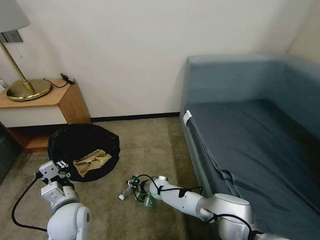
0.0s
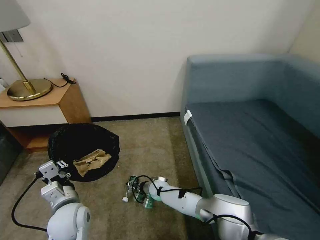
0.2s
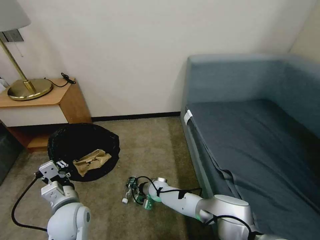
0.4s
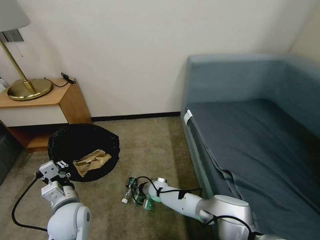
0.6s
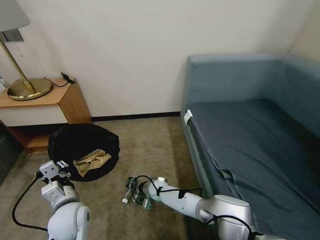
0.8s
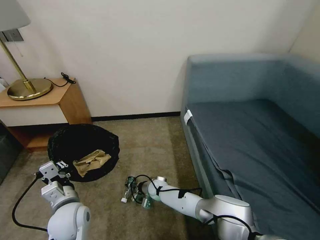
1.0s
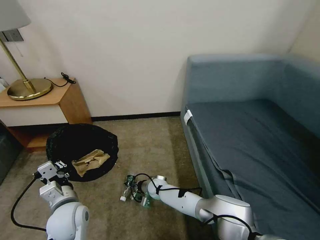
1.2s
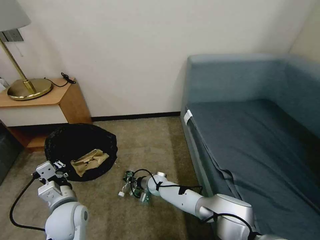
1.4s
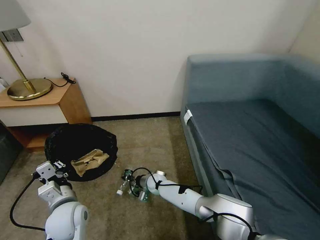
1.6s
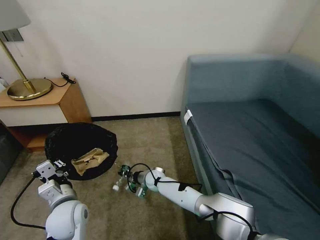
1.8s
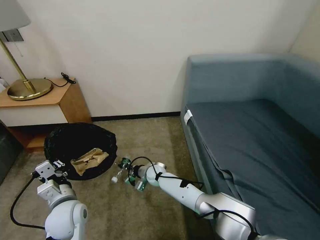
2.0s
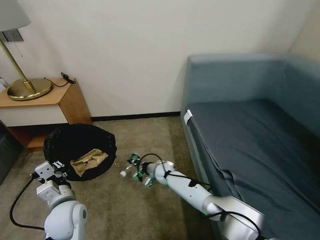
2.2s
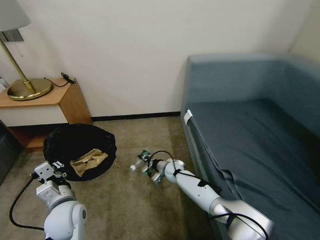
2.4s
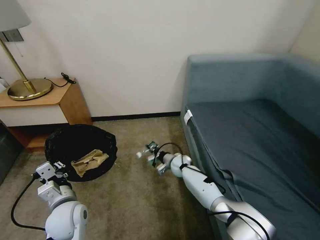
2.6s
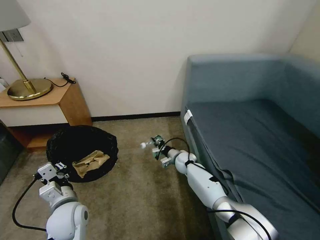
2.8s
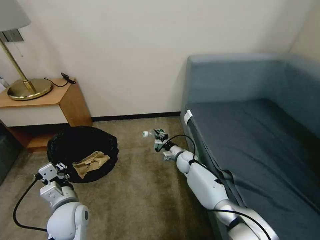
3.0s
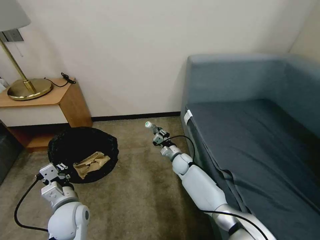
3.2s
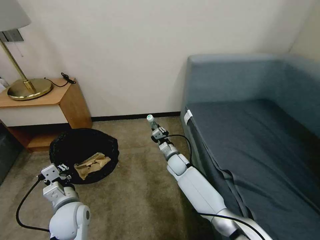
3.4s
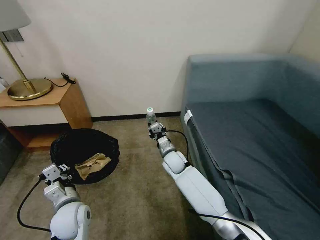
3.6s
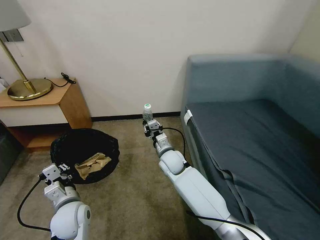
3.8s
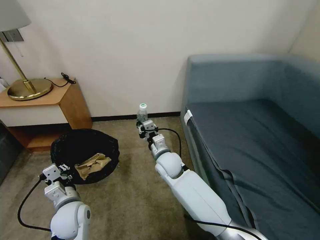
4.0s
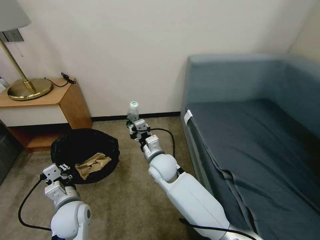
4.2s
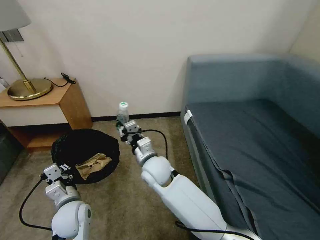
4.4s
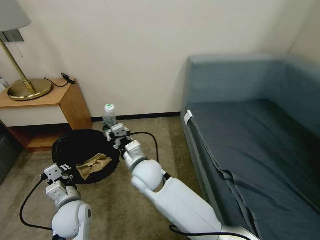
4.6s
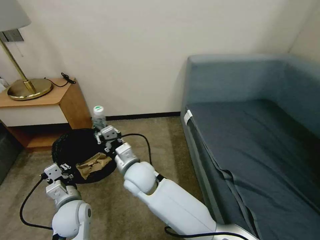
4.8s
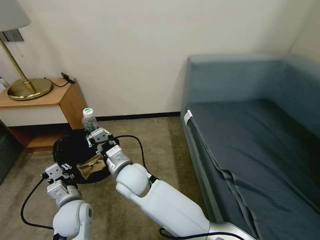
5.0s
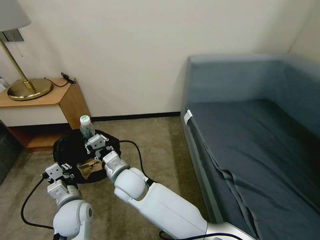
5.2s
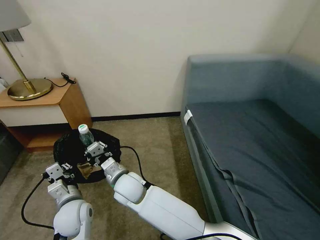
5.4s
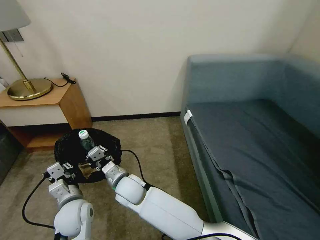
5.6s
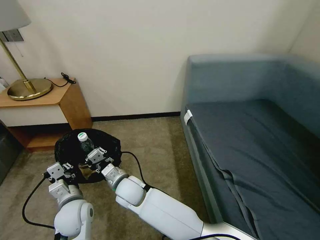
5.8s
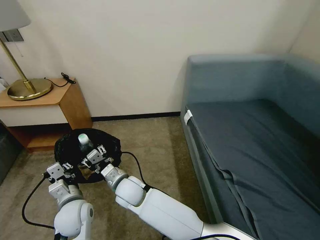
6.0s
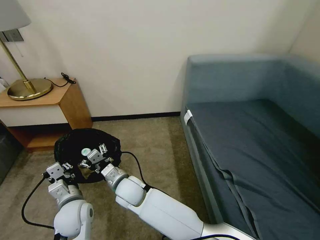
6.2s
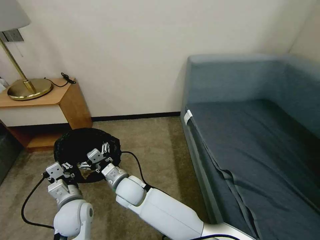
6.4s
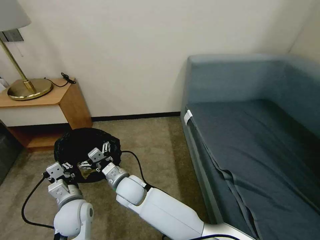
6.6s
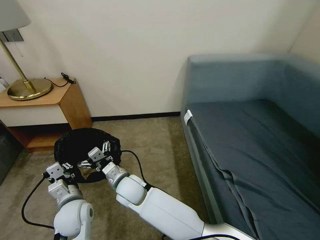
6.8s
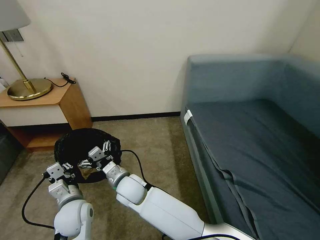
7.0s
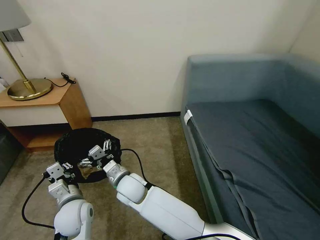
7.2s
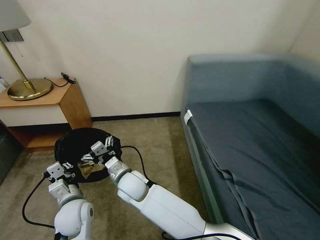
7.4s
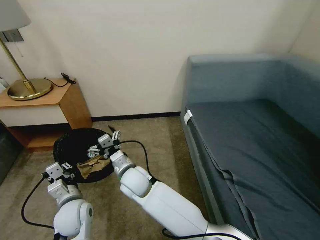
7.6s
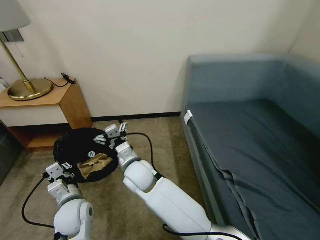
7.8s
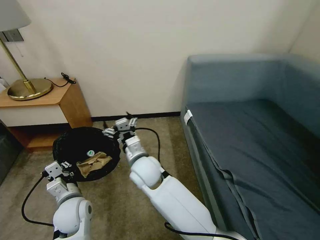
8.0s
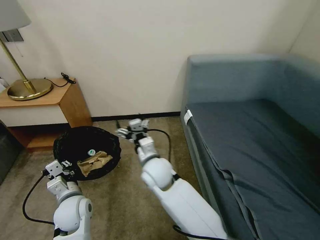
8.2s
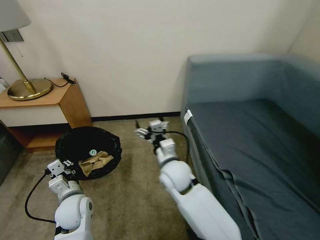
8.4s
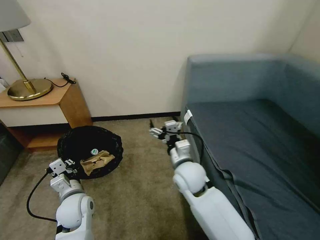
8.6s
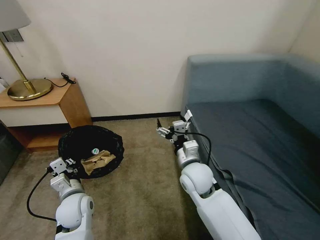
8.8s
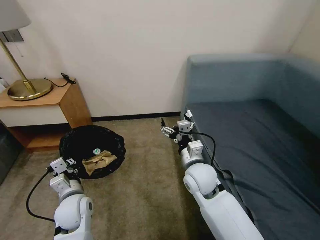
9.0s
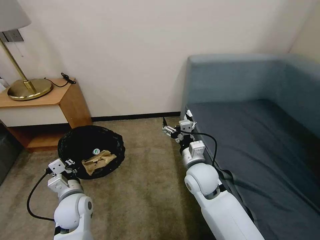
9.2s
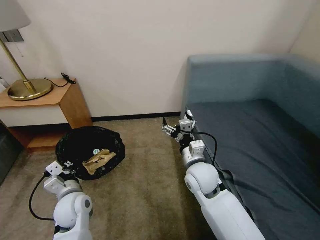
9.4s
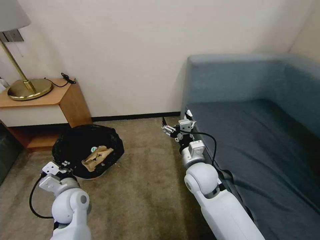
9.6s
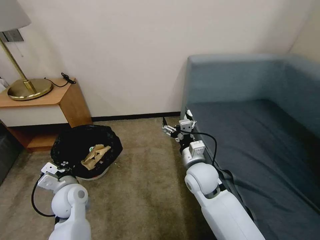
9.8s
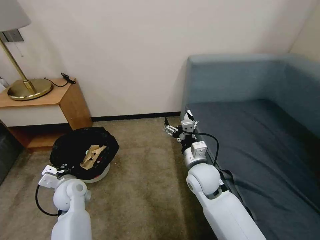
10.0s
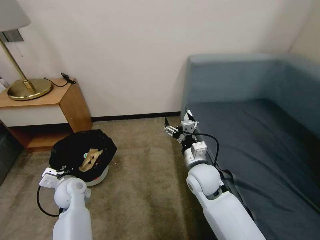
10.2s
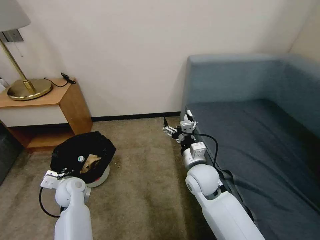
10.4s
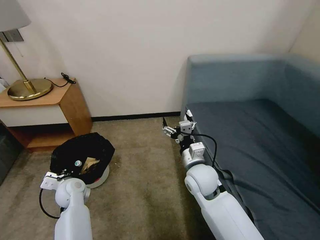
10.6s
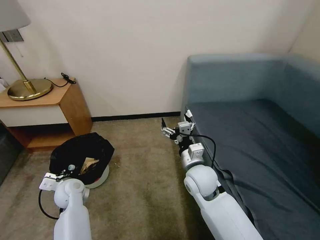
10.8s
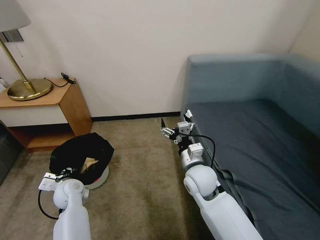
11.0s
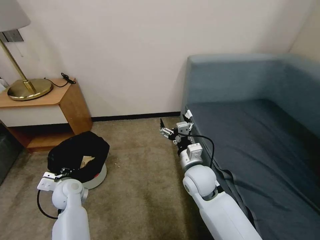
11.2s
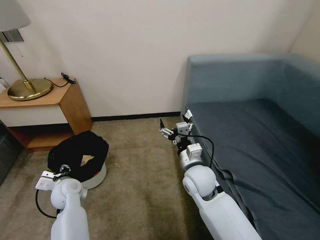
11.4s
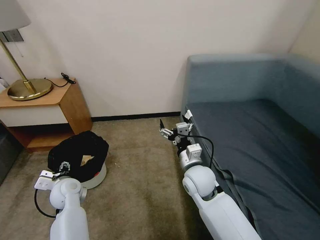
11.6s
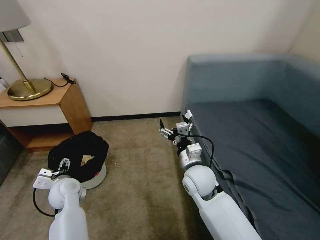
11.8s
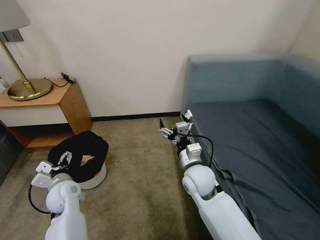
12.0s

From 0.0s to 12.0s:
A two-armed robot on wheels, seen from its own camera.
Task of the whole recording: Pick up the trash bin, then pick up the garbage on the floor and place it into the trash bin.
From 0.0s to 1.6s: The right gripper closes its fingers.
From 1.6s to 3.0s: The right gripper heads to the right, forward and upward, covering some 15 cm.
From 3.0s to 4.4s: The right gripper heads upward, to the left and backward, covering some 25 cm.
From 4.4s to 6.0s: The right gripper heads to the left and downward, covering approximately 10 cm.
From 6.0s to 7.6s: The right gripper opens its fingers.
From 7.6s to 9.0s: The right gripper goes roughly 20 cm to the right.
From 9.0s to 10.4s: The left gripper shifts approximately 10 cm forward and to the left.
From 10.4s to 12.0s: The left gripper opens up.

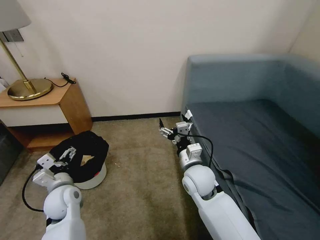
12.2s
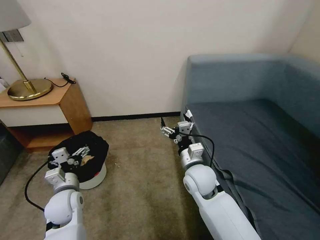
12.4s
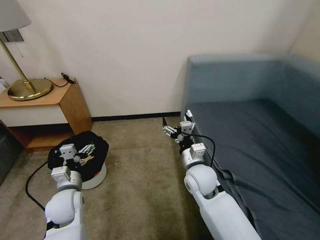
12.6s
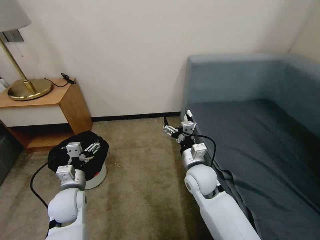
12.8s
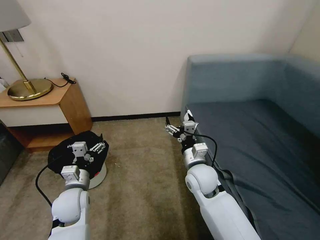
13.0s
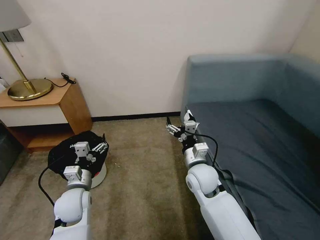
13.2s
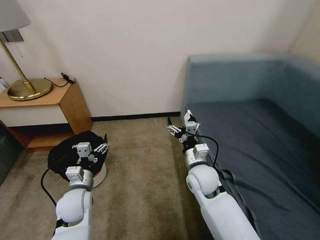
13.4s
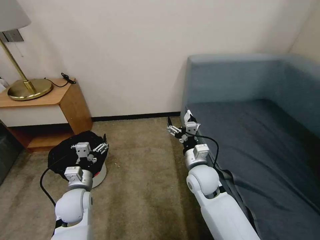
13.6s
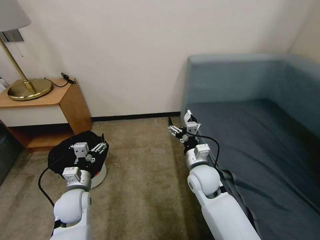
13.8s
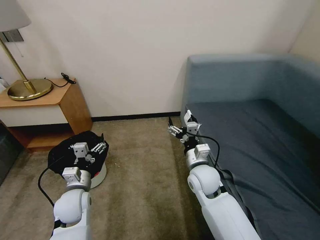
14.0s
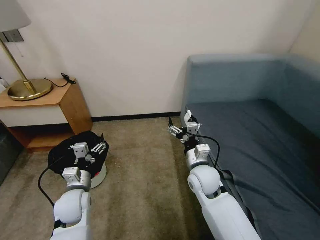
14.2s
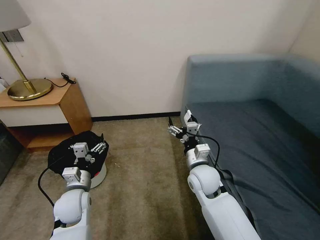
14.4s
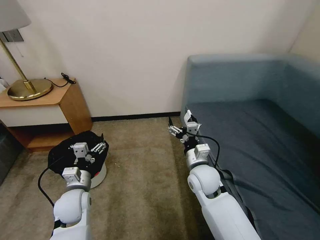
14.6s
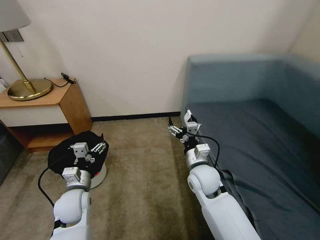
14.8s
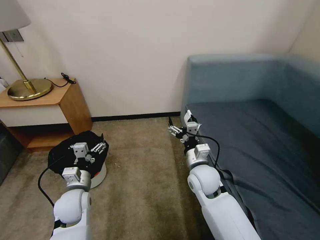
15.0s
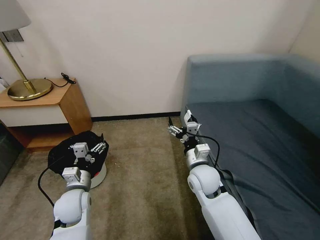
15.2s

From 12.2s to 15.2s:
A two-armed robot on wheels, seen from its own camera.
Task of the whole recording: Pick up the trash bin, then pick up the garbage on the floor and place it into the trash bin.
From 13.8s to 15.2s: Both grippers stay about where they are.

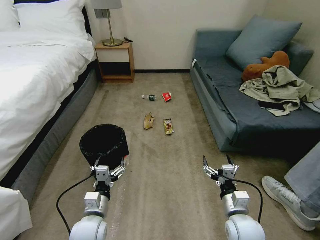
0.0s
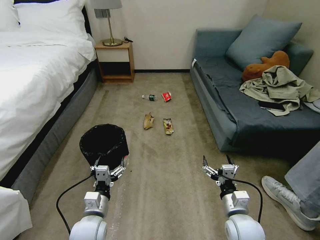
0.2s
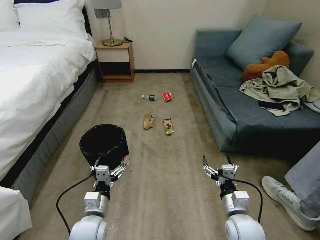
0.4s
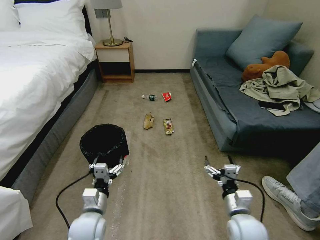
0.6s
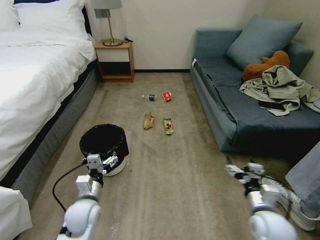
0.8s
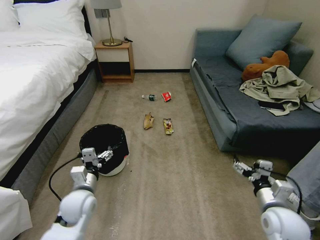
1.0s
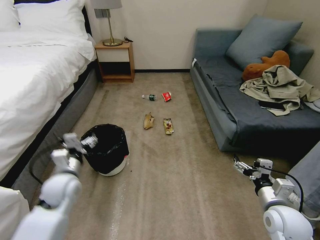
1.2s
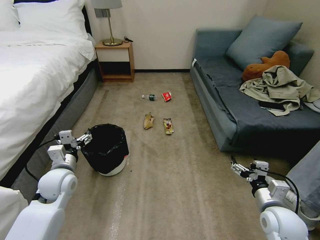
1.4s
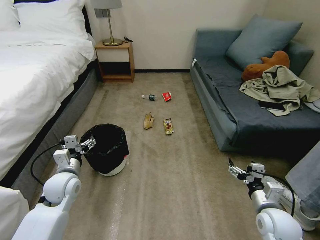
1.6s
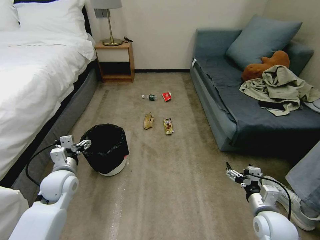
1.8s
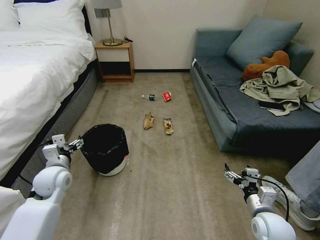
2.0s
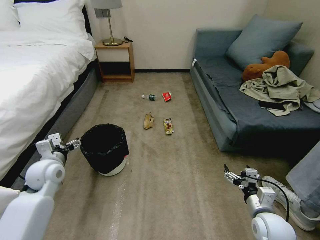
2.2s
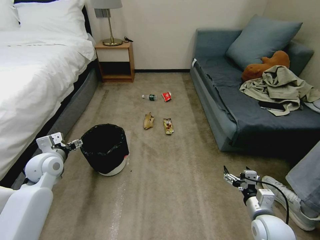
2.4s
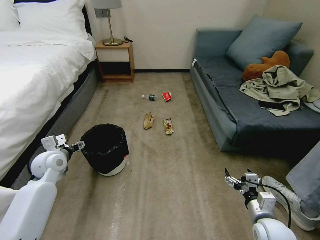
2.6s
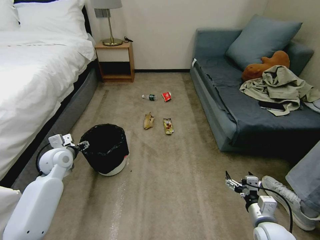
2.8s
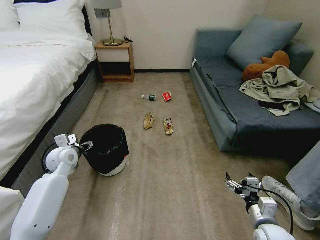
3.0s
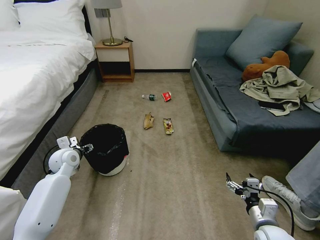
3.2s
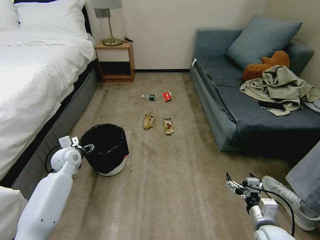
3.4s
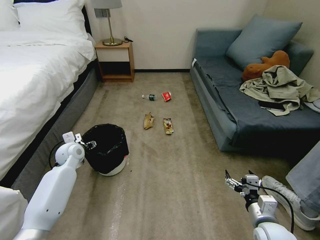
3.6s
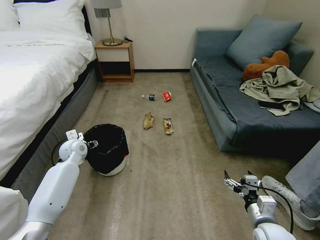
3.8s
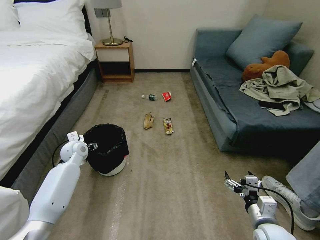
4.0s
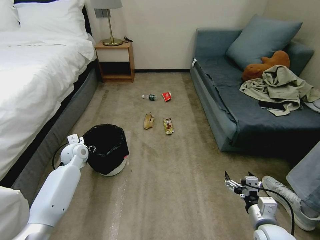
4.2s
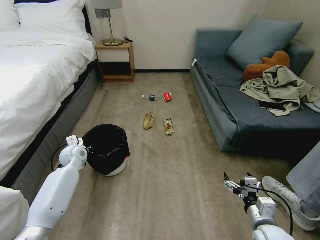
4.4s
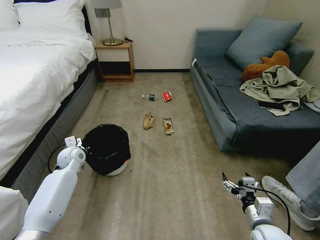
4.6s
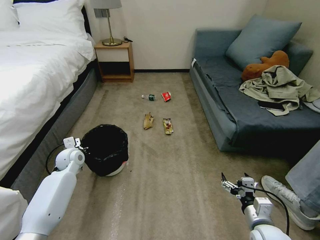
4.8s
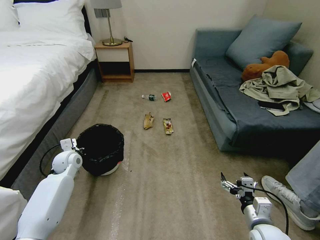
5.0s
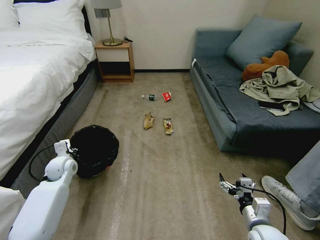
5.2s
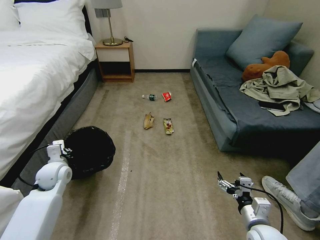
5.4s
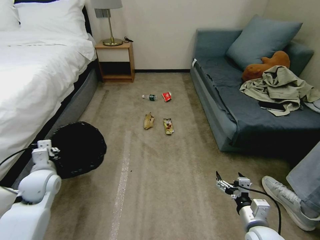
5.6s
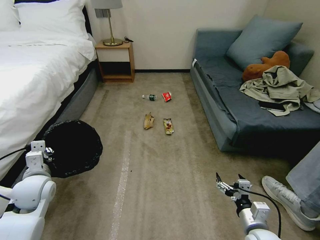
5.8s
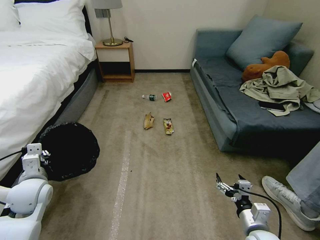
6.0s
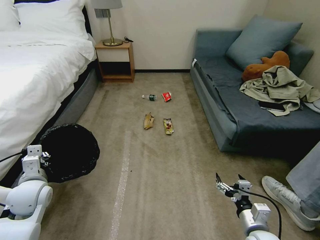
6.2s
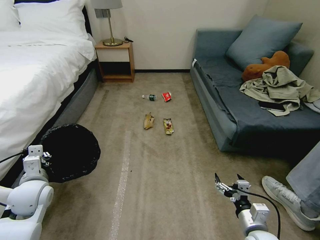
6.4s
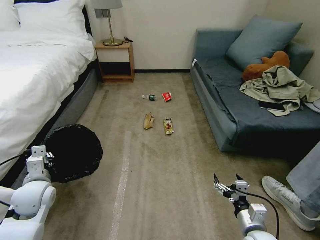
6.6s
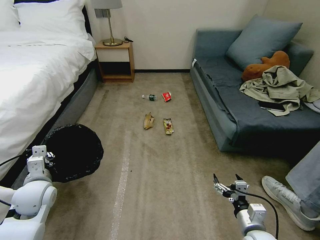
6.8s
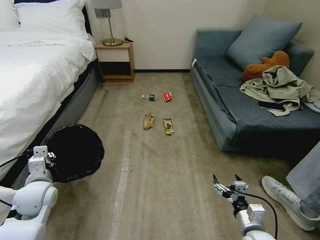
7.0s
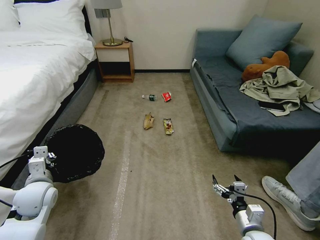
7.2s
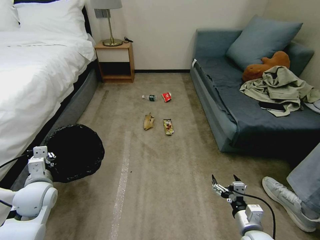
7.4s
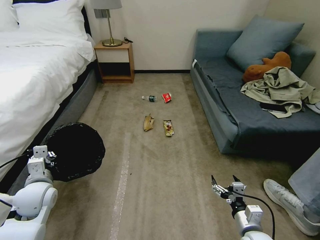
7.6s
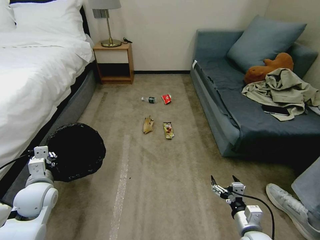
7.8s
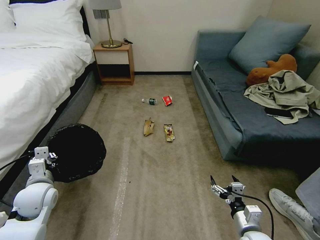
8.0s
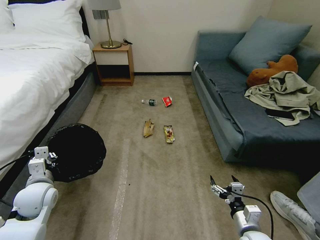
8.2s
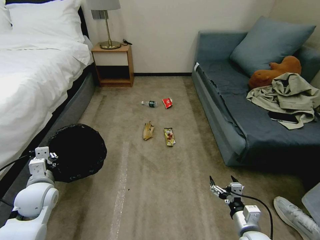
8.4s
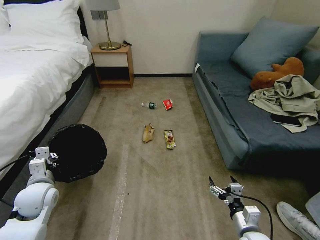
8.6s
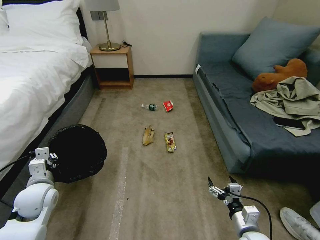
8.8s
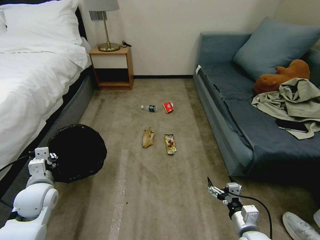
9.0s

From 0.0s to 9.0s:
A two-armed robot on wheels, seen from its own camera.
Task of the whole recording: Pick up the trash bin, then pick up the garbage on the floor and place it into the trash bin.
From 1.6s to 3.0s: The left gripper moves forward, roughly 10 cm.
From 3.0s to 4.4s: The left gripper moves some 5 cm, and closes.
From 4.4s to 6.0s: The left gripper goes about 20 cm backward.
From 6.0s to 7.6s: There are only small adjustments of the grippers.
